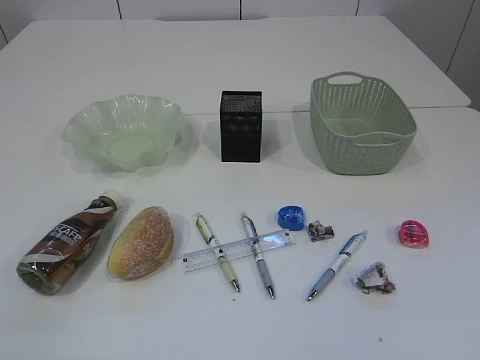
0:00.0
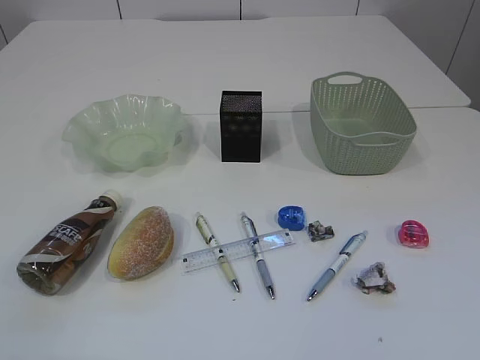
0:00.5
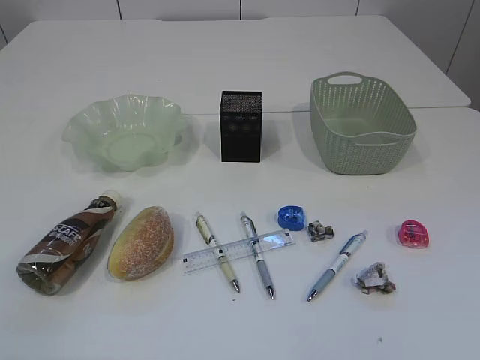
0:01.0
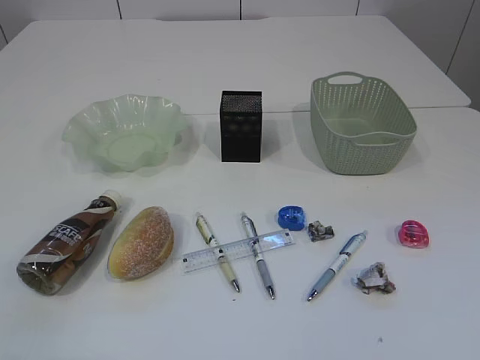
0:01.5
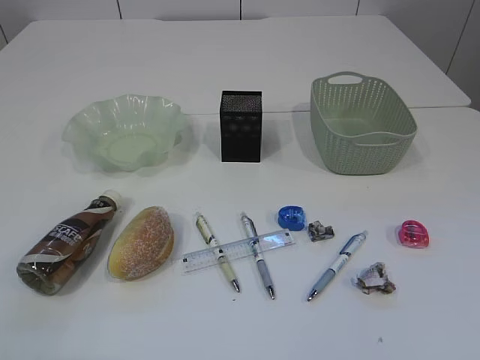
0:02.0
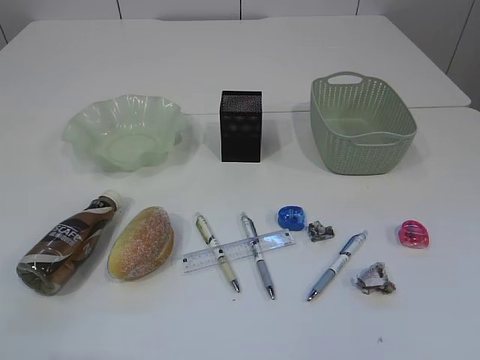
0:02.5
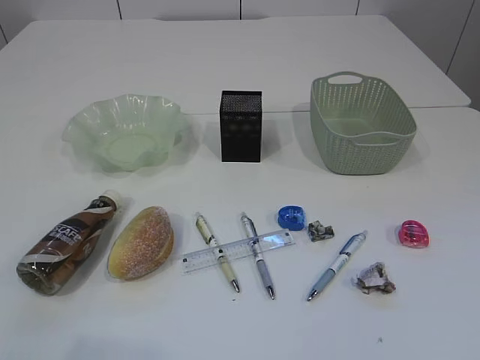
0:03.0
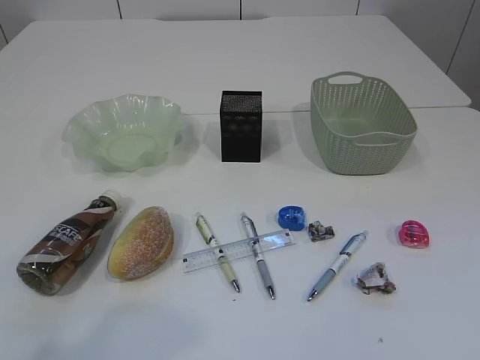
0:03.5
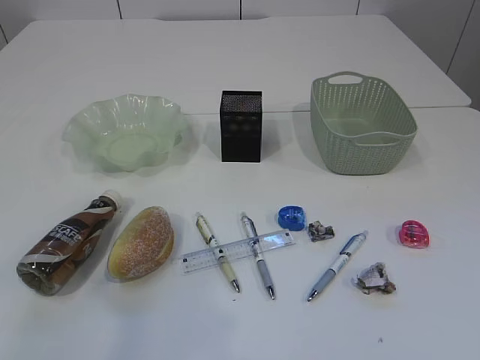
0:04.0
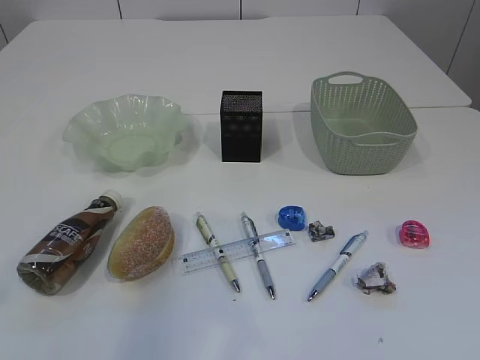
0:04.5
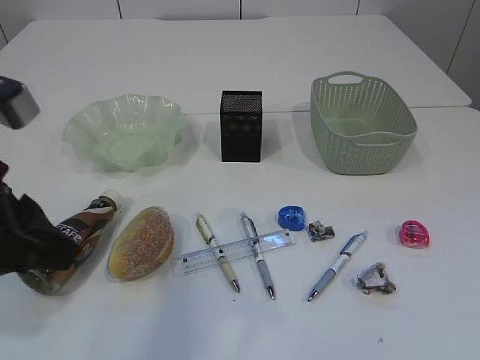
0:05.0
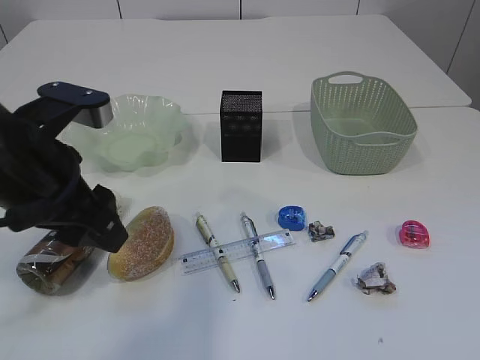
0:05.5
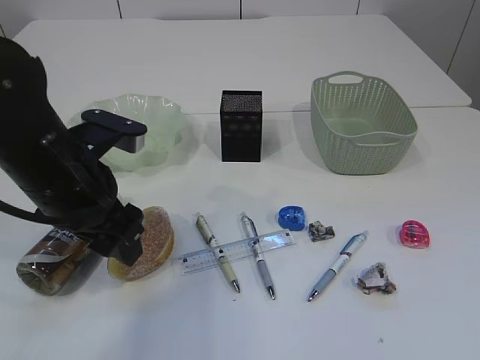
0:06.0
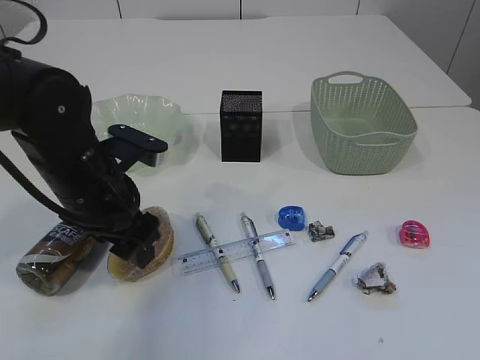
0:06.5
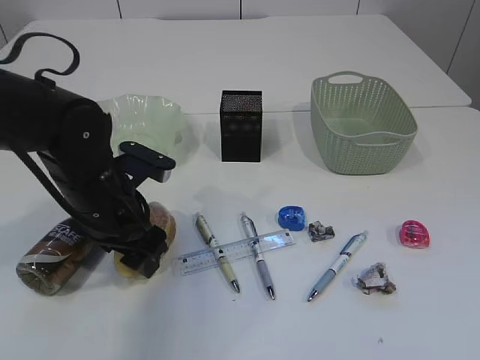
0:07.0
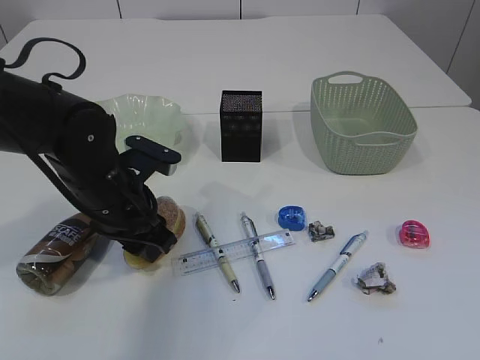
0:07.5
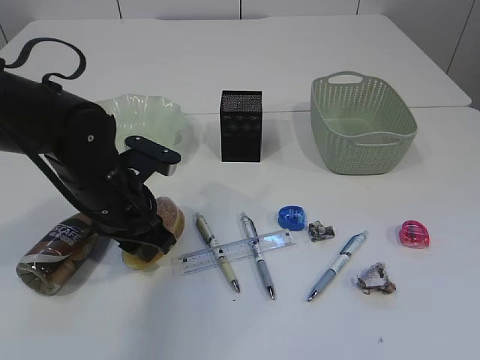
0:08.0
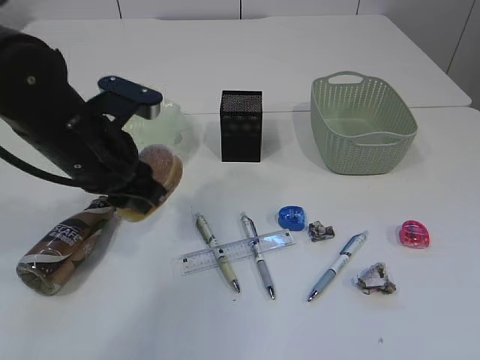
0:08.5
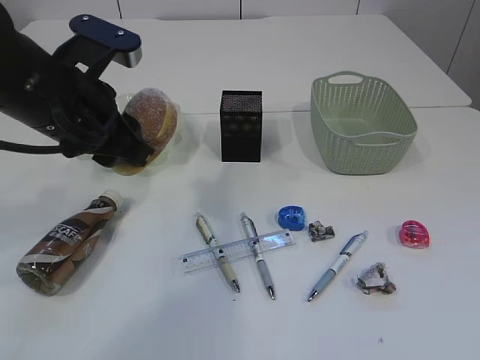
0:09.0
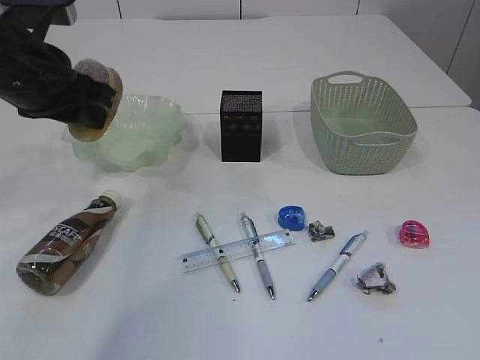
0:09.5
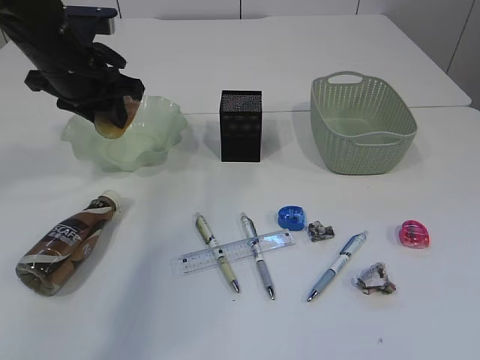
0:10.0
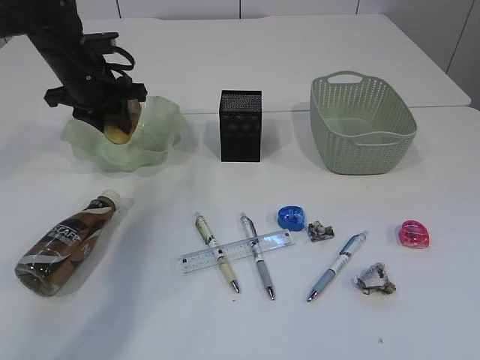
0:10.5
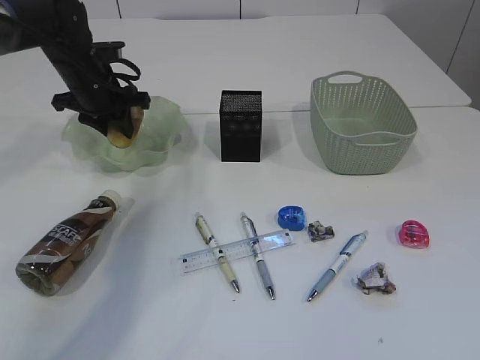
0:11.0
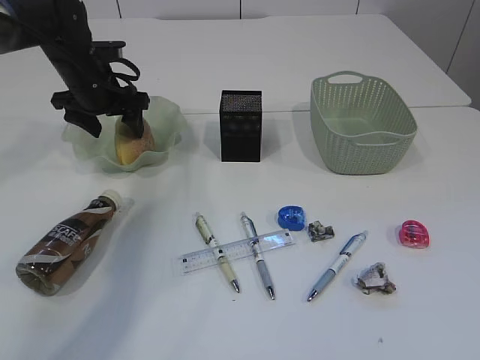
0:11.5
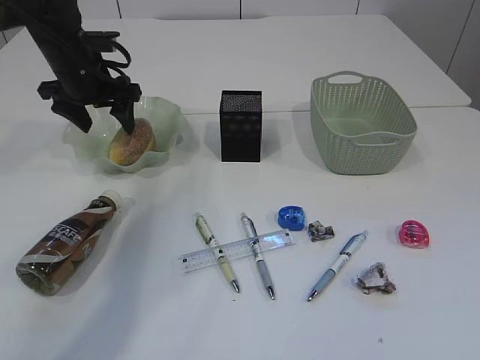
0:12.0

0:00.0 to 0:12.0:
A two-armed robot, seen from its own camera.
0:02.0 to 0:04.0: The left gripper is displaced forward and upward by roughly 15 cm.
0:04.0 to 0:06.0: The left gripper heads forward, downward and to the right, covering about 25 cm, and opens.
0:06.0 to 0:08.0: The left gripper heads downward, covering about 5 cm, and closes.
0:08.0 to 0:10.0: The left gripper heads upward, forward and to the left, covering about 15 cm.
0:10.0 to 0:12.0: The left gripper travels forward by some 5 cm, and opens.

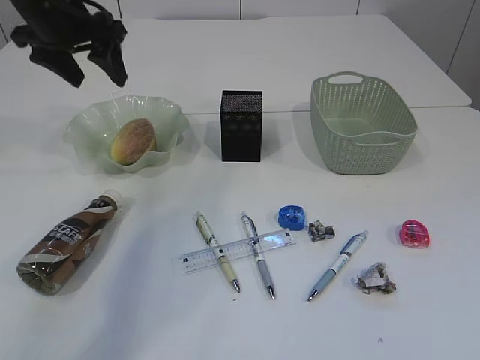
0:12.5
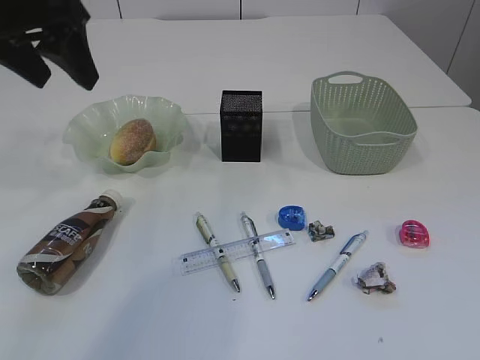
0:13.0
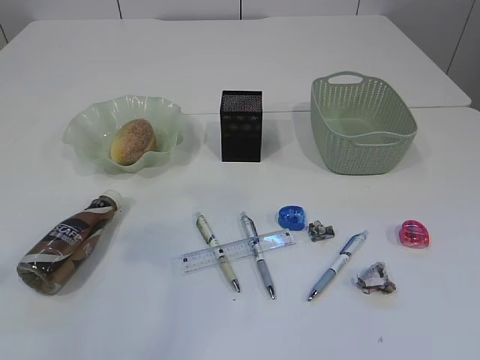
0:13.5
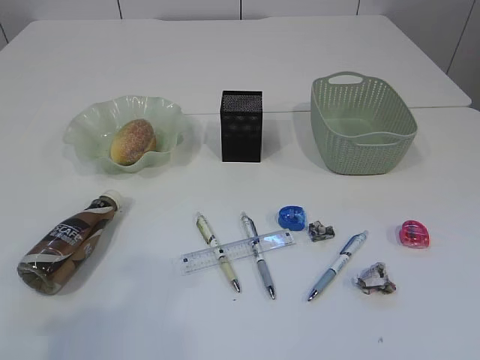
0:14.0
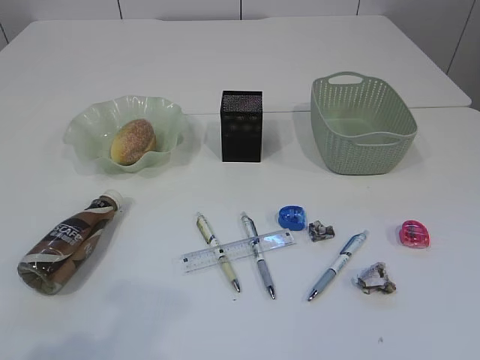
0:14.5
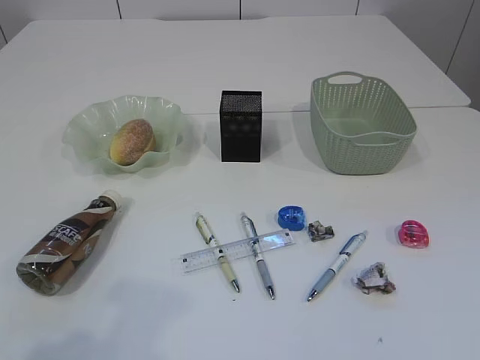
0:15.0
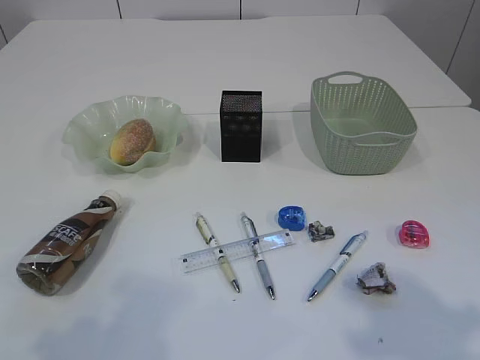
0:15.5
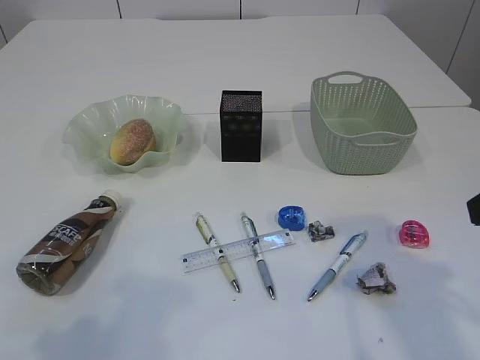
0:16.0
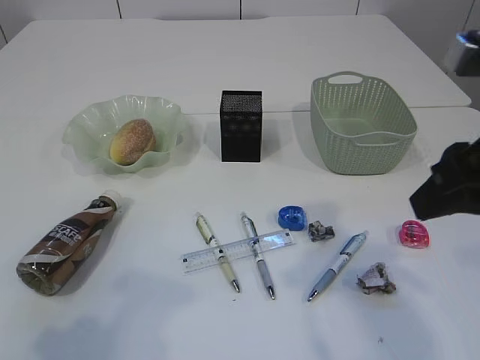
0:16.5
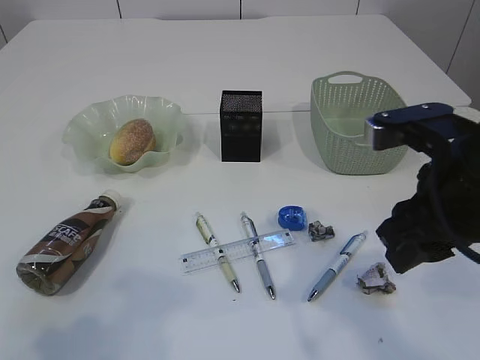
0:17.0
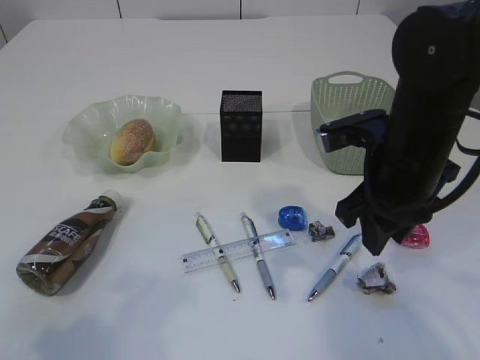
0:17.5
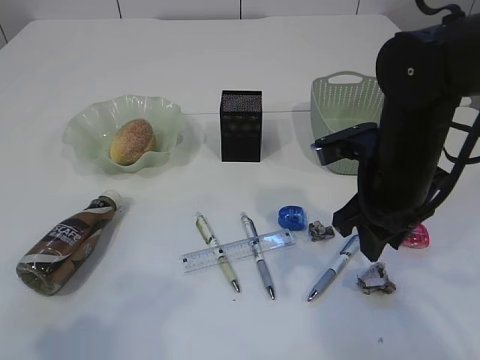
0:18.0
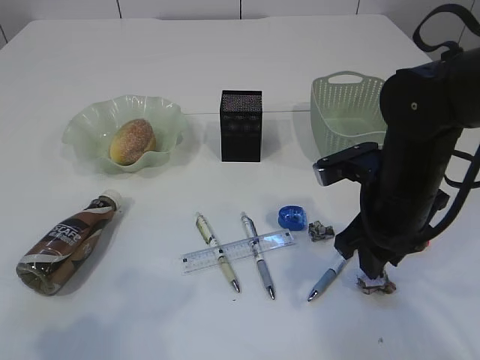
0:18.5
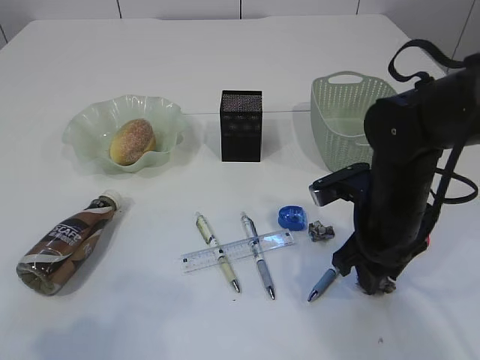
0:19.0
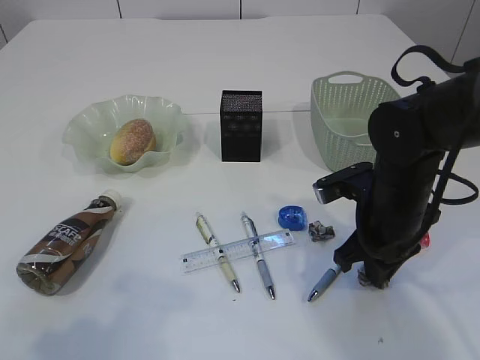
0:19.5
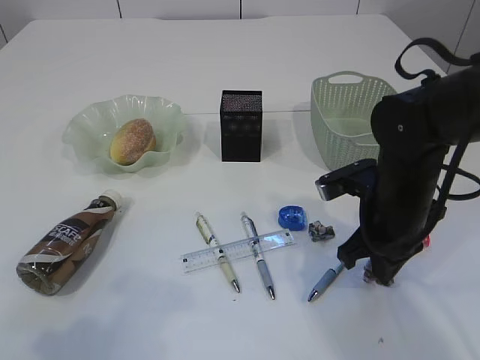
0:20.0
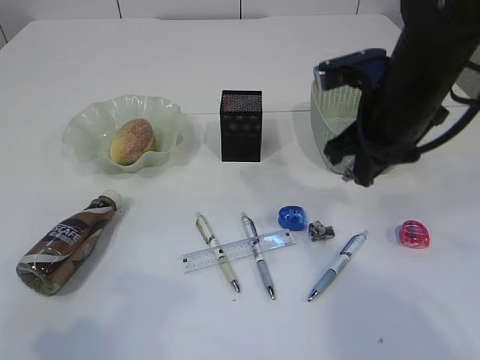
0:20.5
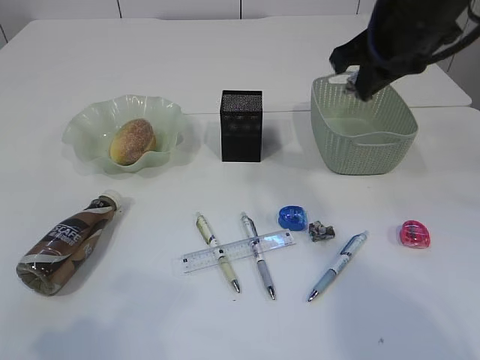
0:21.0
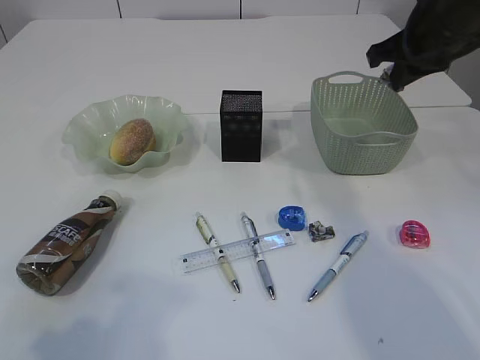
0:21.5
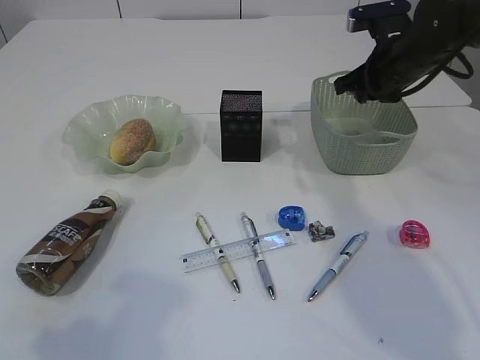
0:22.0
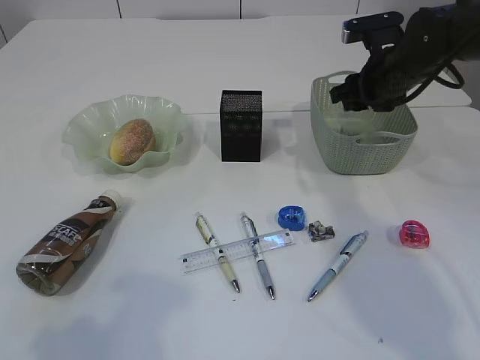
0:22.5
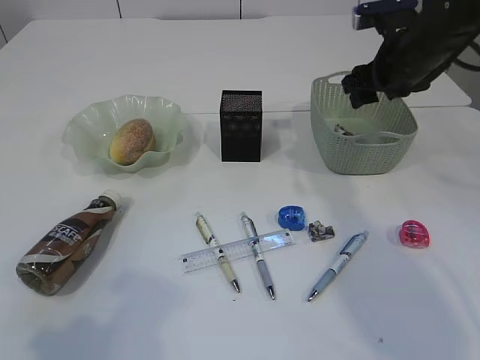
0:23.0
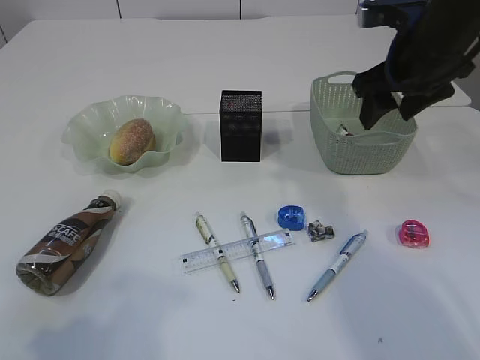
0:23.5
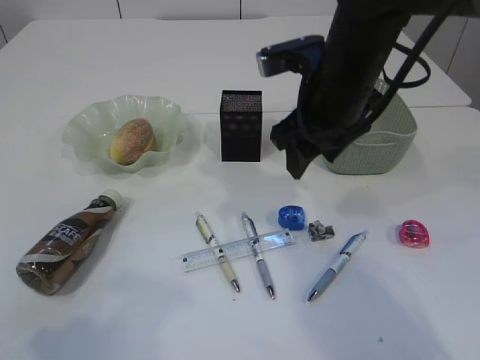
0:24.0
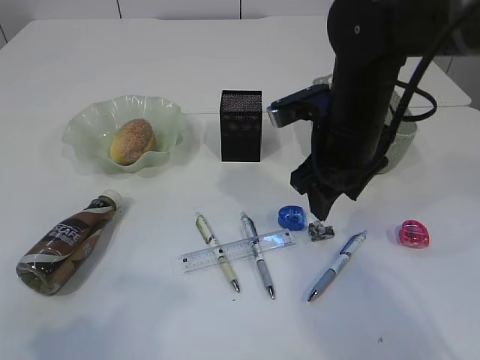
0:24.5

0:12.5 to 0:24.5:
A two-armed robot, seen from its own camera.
Step, 0:12.5 to 0:20.0: Pick up the waste paper.
Step, 0:20.5 to 0:23.0: Place the waste paper in the basket.
0:12.5 to 0:14.5: The left gripper is displaced backward by approximately 35 cm.
0:14.5 to 0:16.5: The right gripper is displaced forward by some 20 cm.
0:16.5 to 0:18.5: The right gripper goes about 15 cm downward and forward.
0:18.5 to 0:20.5: The right gripper heads upward, covering some 10 cm, and closes.
0:20.5 to 0:22.5: The right gripper travels forward and to the right by about 15 cm, and opens its fingers.
0:22.5 to 0:24.5: The right gripper shifts roughly 15 cm backward and to the left.

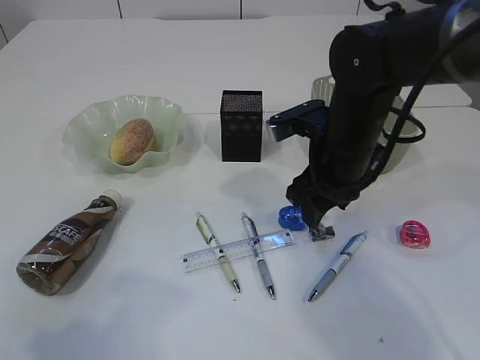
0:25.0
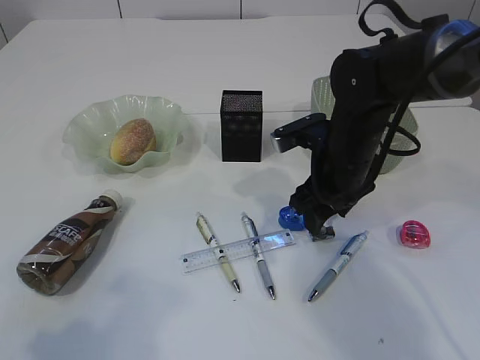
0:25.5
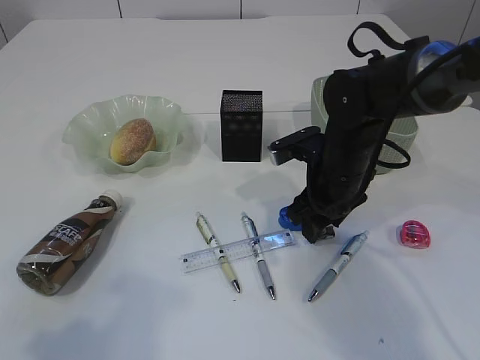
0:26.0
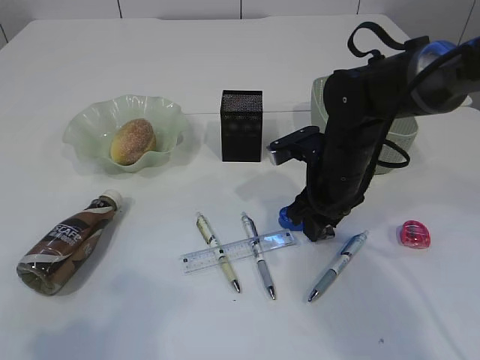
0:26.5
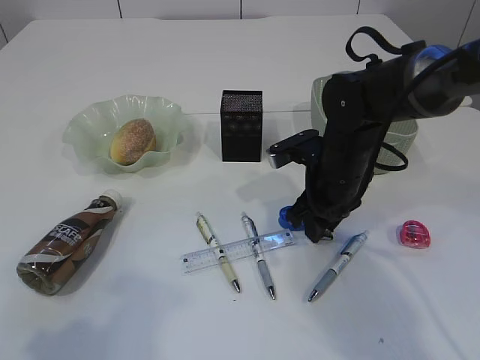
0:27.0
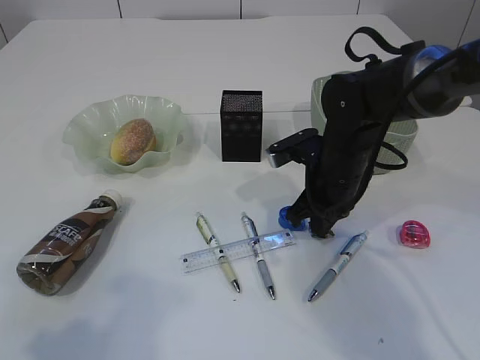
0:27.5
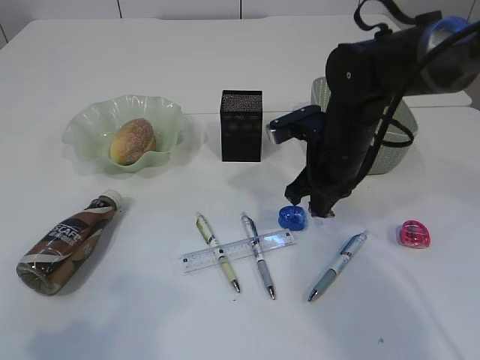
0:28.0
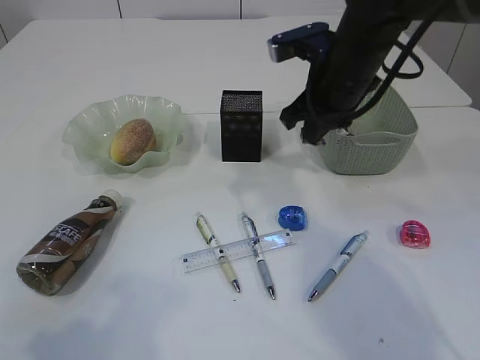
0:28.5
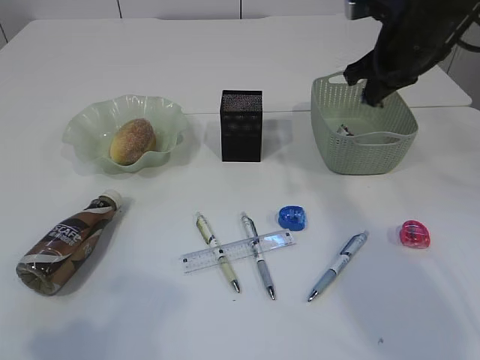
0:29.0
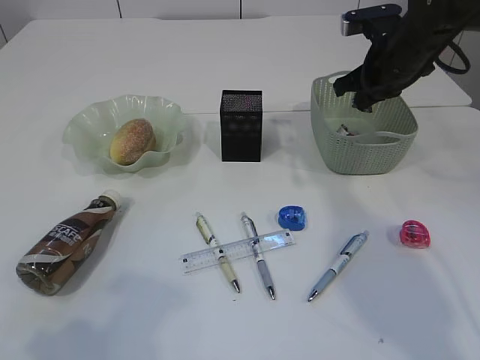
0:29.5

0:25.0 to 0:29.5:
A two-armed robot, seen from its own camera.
Step, 0:25.0 to 0:28.0: Pick up the waste paper.
0:25.0 to 0:27.0: The right gripper shifts approximately 5 cm downward, and closes up.
0:27.0 to 0:29.5: The right gripper goes approximately 15 cm upward, to the right and forward, and closes up.
